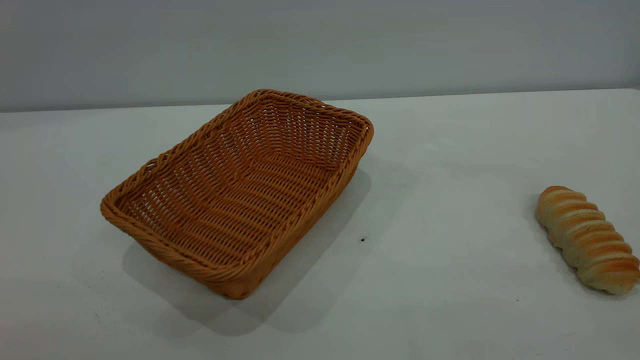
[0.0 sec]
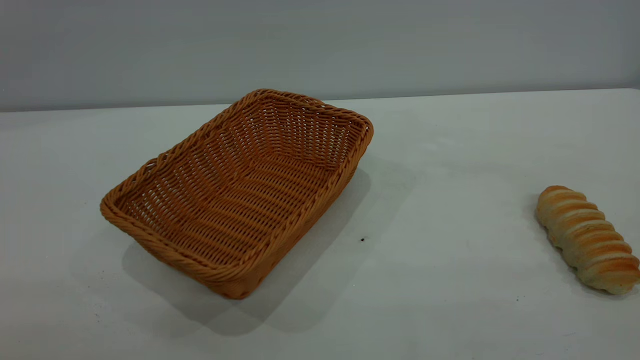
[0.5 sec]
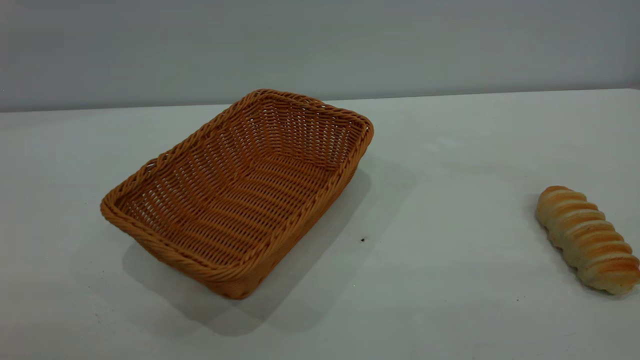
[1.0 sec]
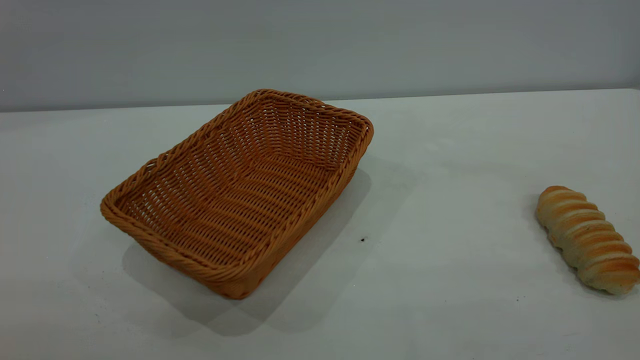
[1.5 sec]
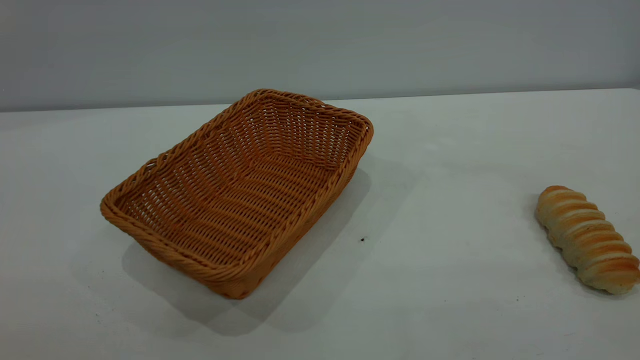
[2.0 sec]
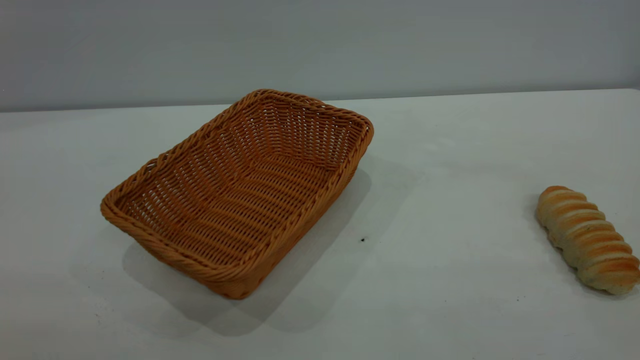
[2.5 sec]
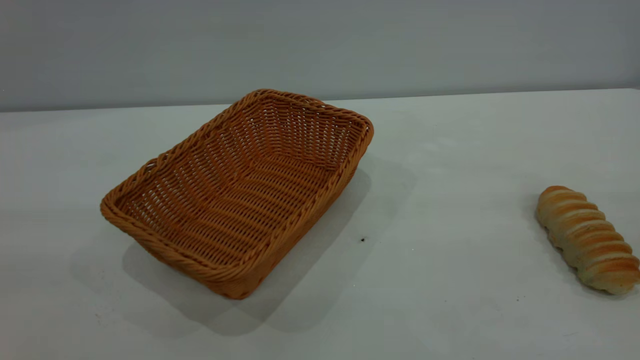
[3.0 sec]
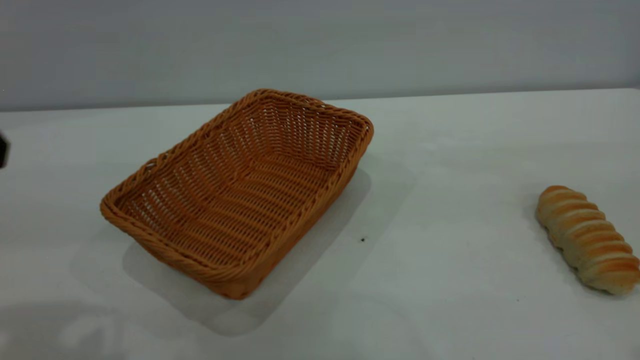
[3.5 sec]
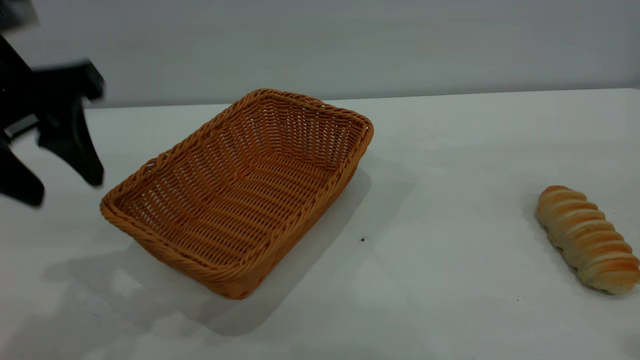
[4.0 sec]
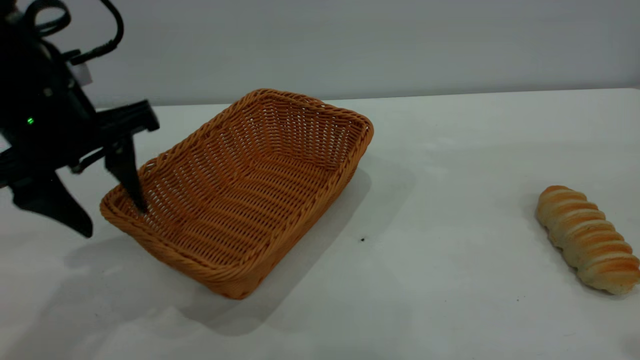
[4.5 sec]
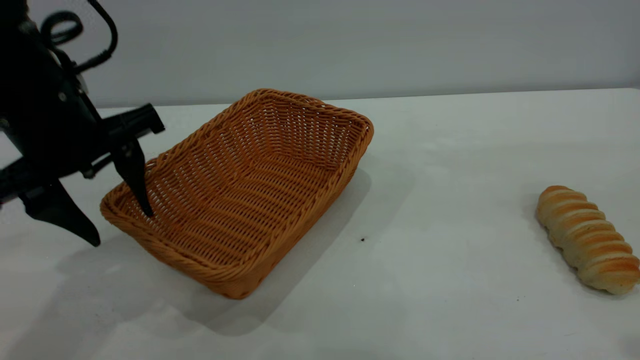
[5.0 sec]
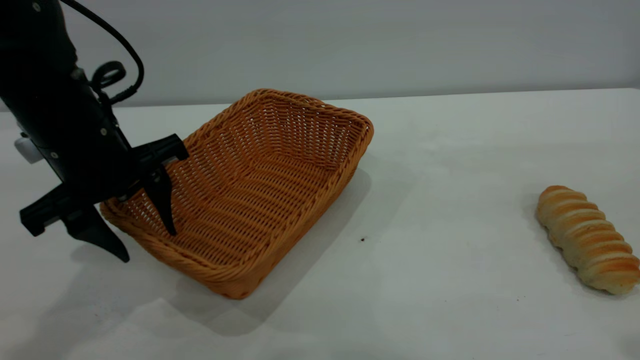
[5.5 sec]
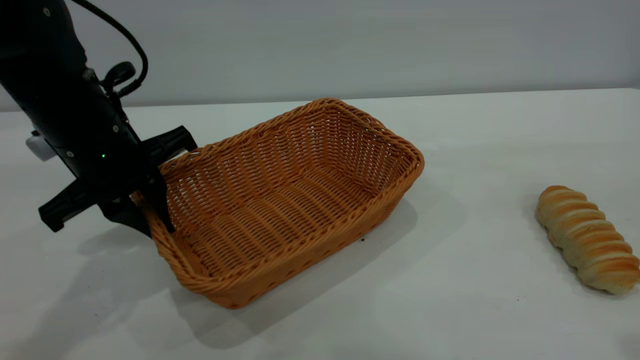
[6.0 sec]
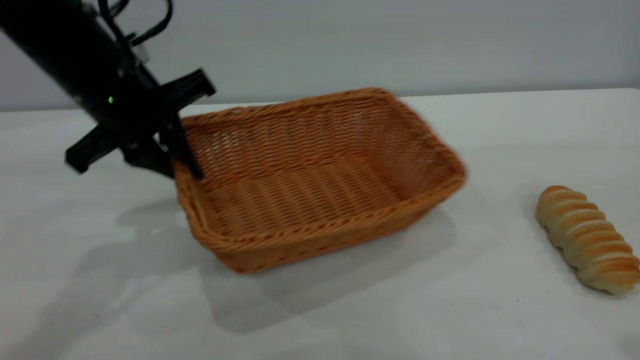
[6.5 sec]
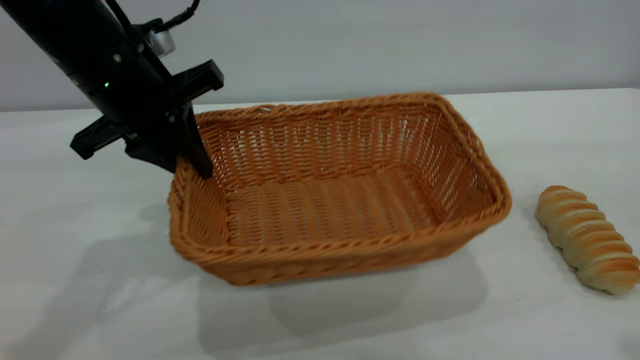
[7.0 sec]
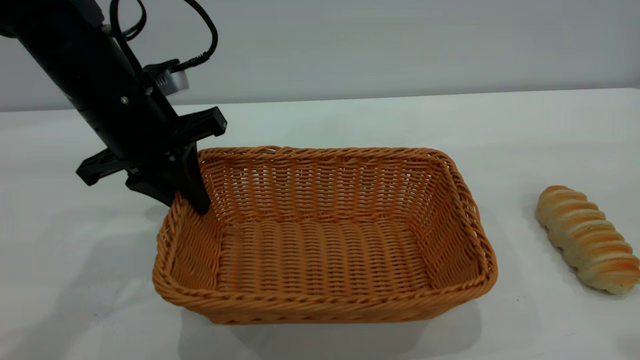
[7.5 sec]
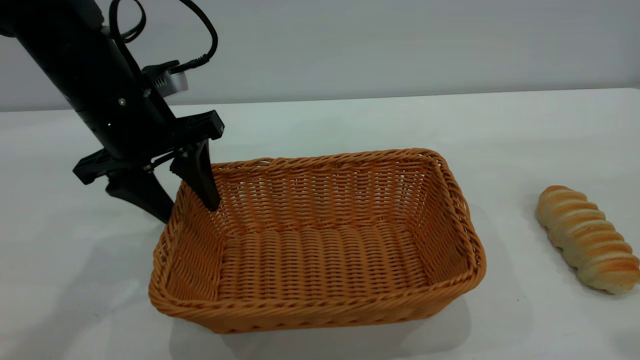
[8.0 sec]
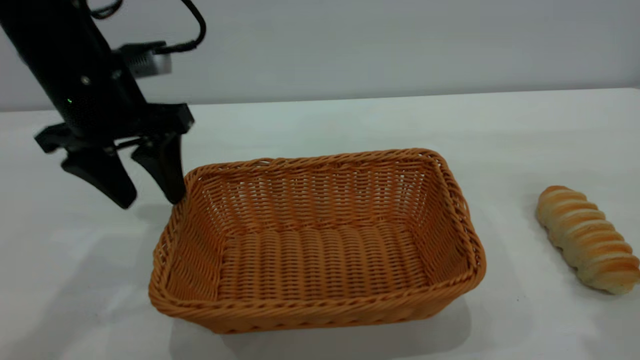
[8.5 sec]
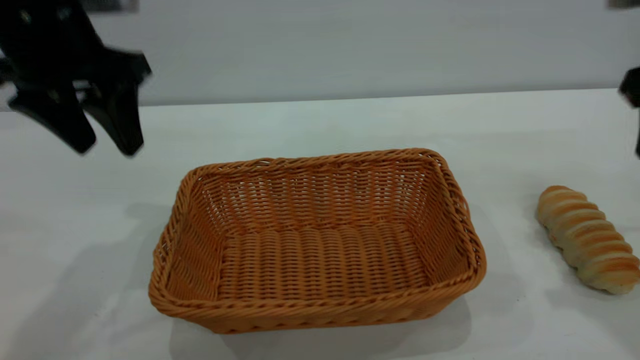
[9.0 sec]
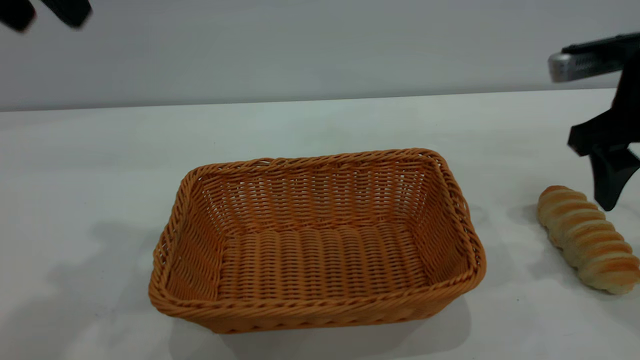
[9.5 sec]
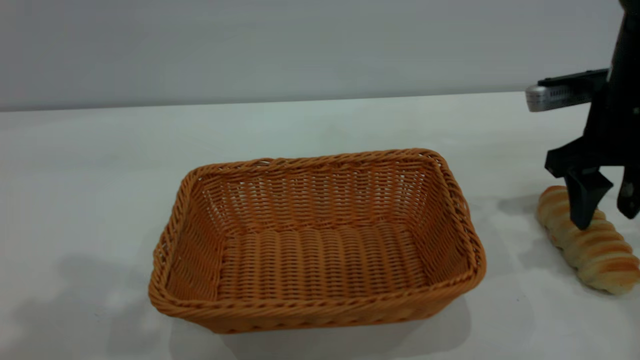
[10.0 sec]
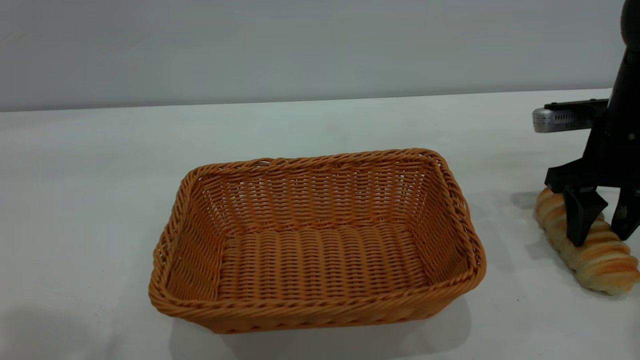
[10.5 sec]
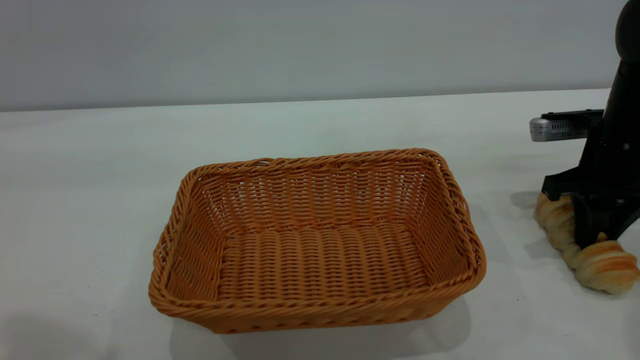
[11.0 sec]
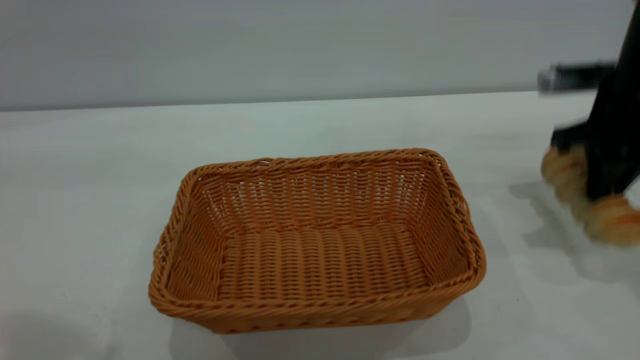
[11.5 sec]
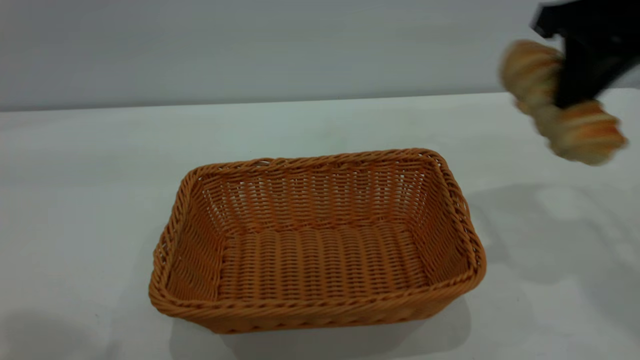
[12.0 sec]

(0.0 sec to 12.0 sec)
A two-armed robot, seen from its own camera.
Task of the whole recording: One hand grasps the yellow basket and places it in the middle of the table, while the other hand picks up the long bread and puts it into the yellow basket.
Step, 0.0 sec - 8.5 sec: Move the basket to the center of view.
2.0 sec - 4.0 sec: The left gripper is displaced forward by some 30 cm.
4.0 sec - 6.0 sec: The left gripper moves downward and forward, about 10 cm, and closes its fingers.
6.0 sec - 8.0 sec: The left gripper opens its fingers.
8.0 sec - 10.0 sec: The left gripper travels upward and backward by about 30 cm, while the right gripper moves downward and forward, about 30 cm.
10.0 sec - 12.0 sec: The right gripper goes approximately 15 cm upward, and closes.

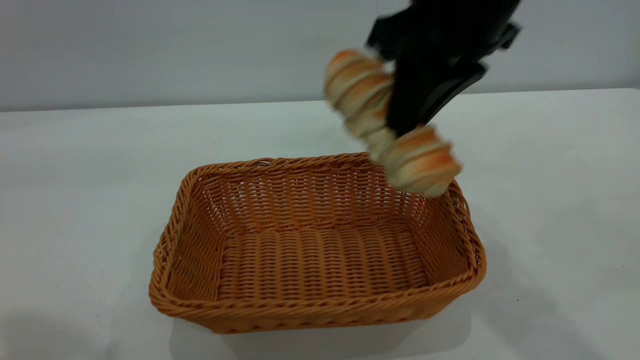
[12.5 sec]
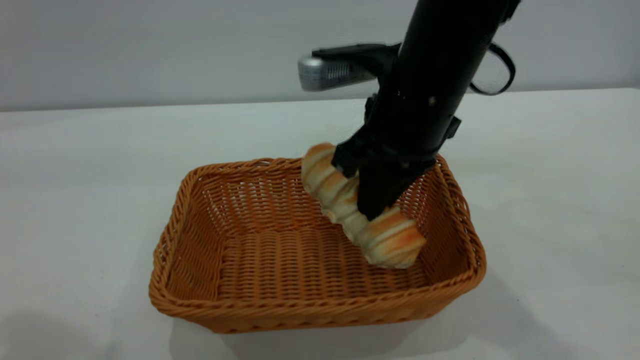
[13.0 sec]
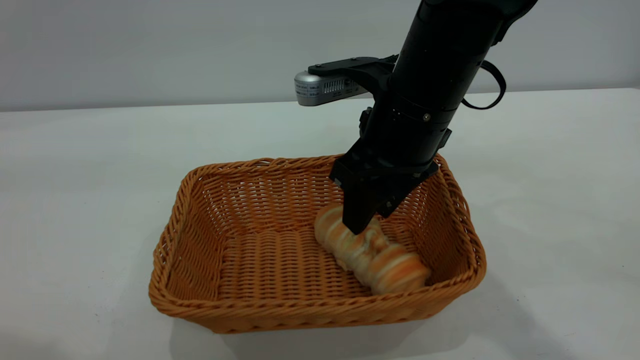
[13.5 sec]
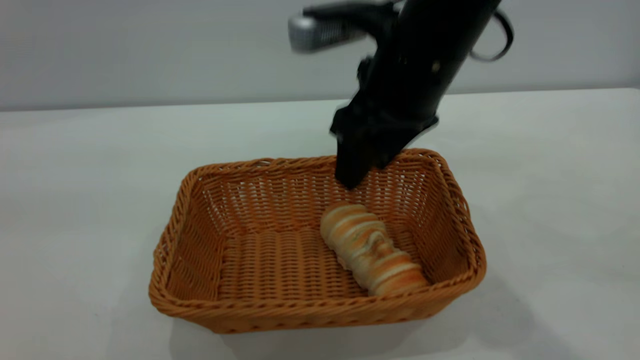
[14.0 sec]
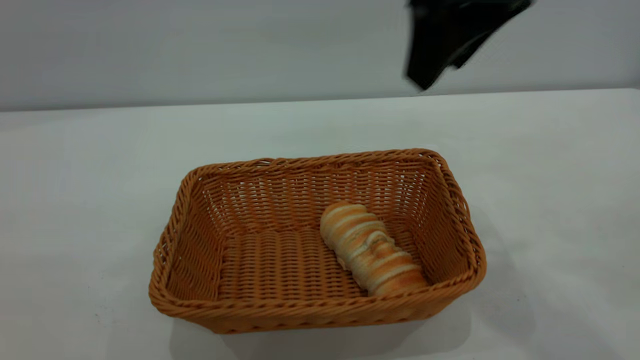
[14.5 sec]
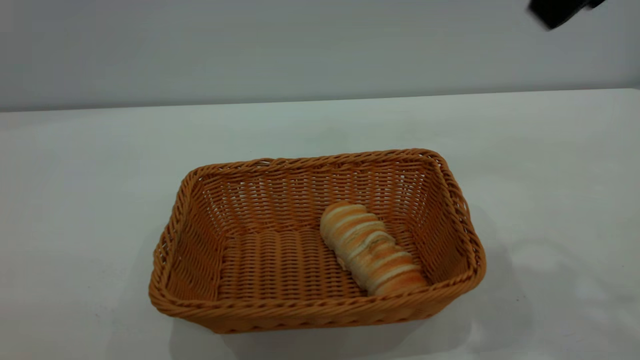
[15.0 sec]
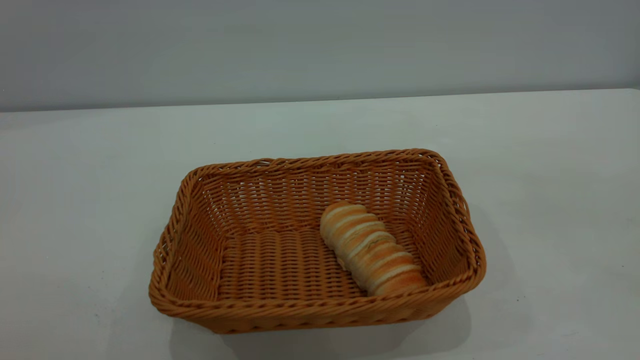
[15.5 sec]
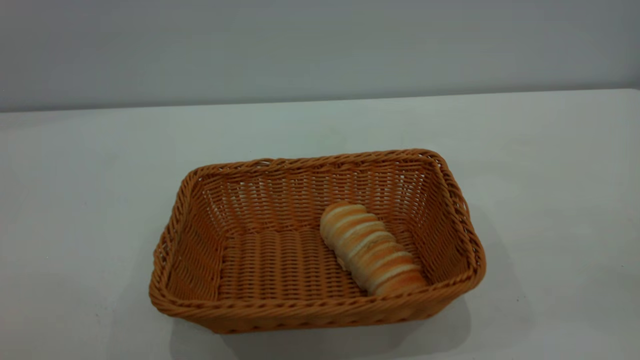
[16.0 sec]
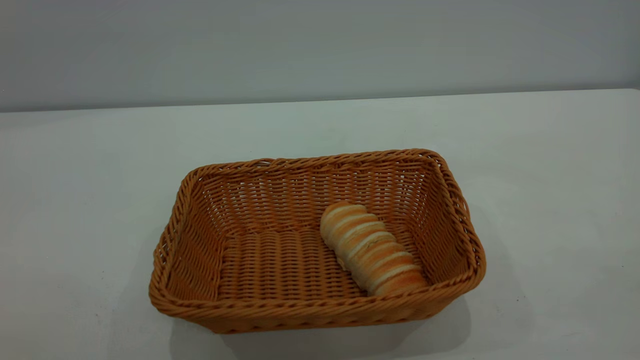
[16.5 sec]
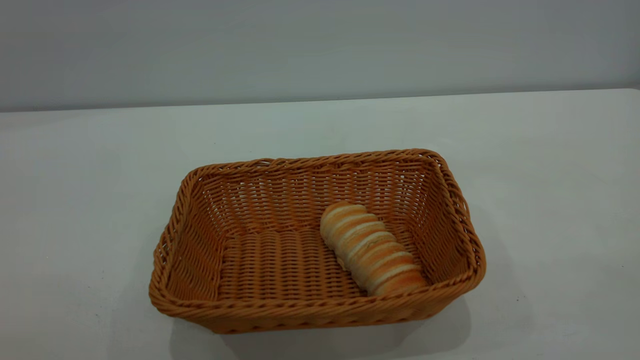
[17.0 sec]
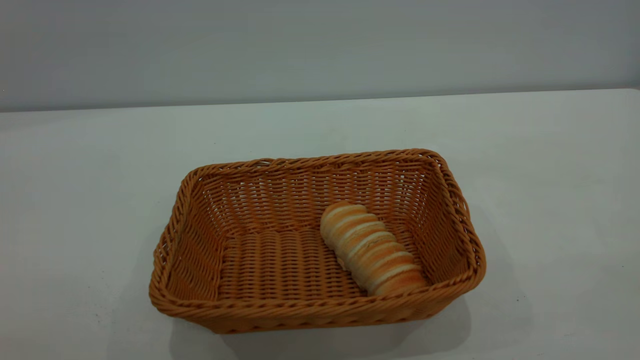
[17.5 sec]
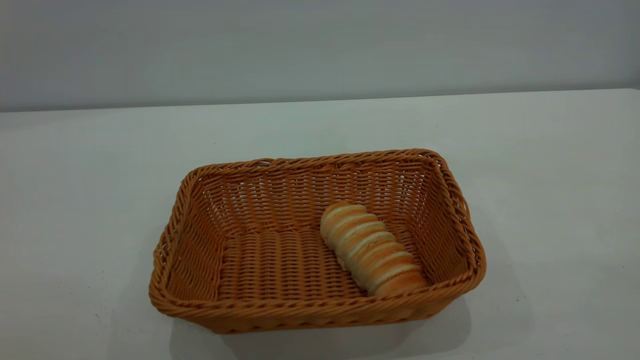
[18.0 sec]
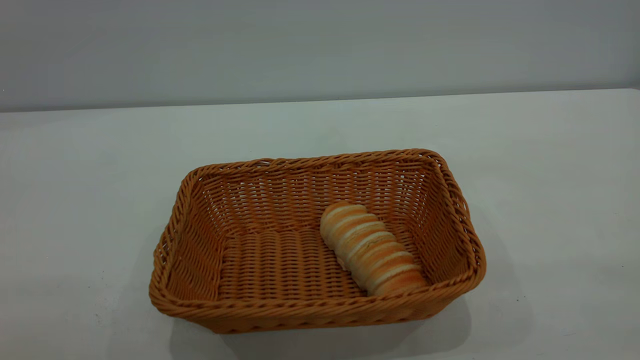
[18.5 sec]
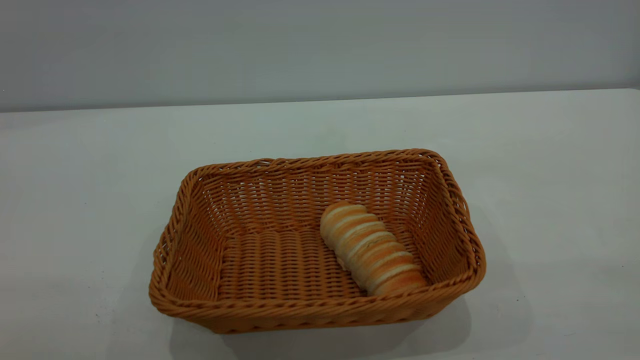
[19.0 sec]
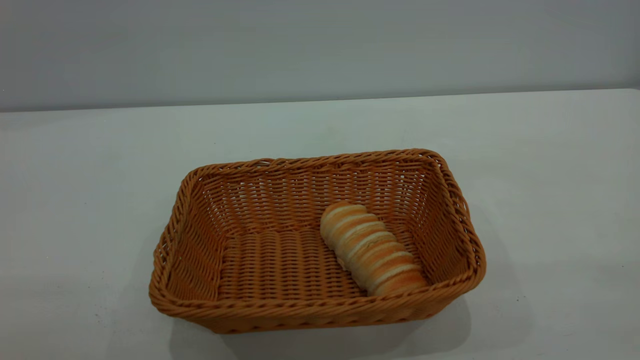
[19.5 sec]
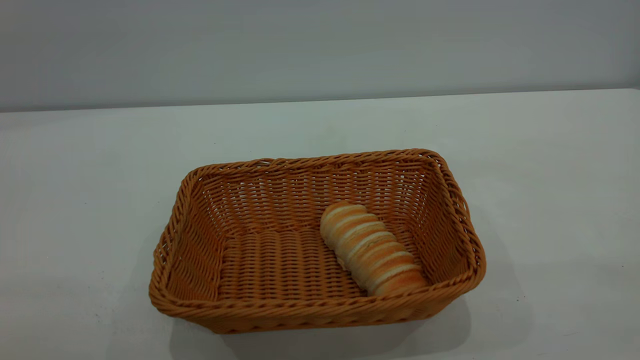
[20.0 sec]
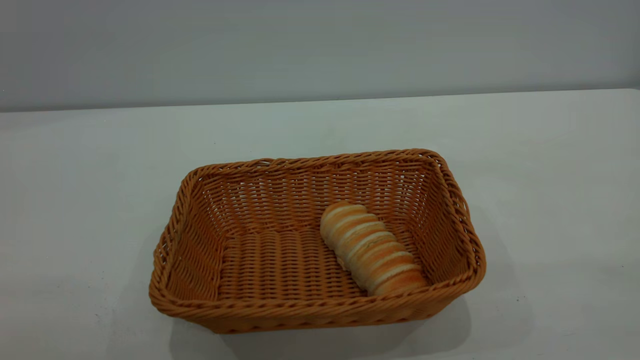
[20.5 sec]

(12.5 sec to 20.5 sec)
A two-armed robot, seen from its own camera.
Task of the whole recording: One hand grasps the yellow basket and places it in the middle of the table, while the other hand picks up the long bread and puts it into the yellow basket.
Step, 12.5 sec - 14.0 sec: place the bread into the basket.
12.5 sec - 14.5 sec: The left gripper heads backward and downward, covering about 15 cm, while the right gripper shifts approximately 5 cm upward, and opens up.
14.5 sec - 16.5 sec: The right gripper moves backward and to the right, roughly 40 cm. The left gripper is displaced downward by approximately 5 cm.
18.5 sec - 20.5 sec: Both grippers stay put.
